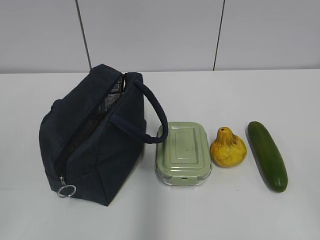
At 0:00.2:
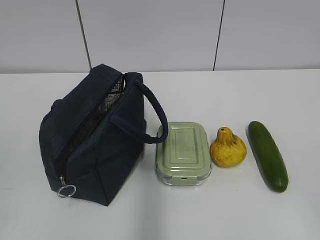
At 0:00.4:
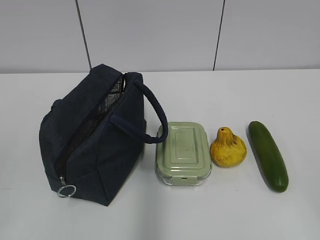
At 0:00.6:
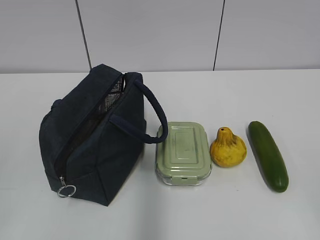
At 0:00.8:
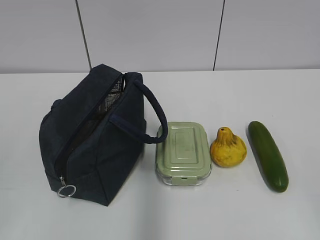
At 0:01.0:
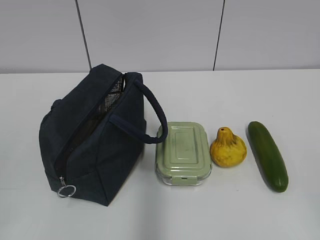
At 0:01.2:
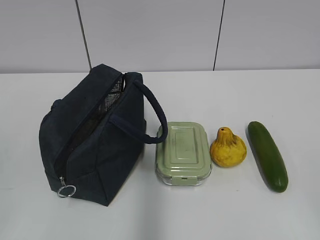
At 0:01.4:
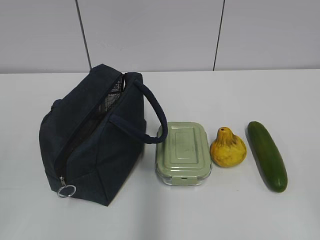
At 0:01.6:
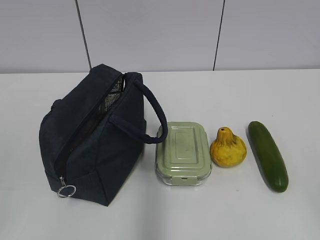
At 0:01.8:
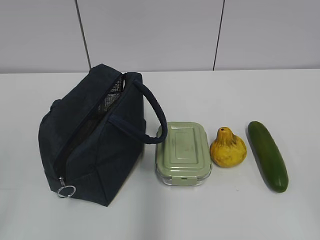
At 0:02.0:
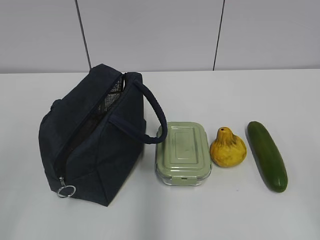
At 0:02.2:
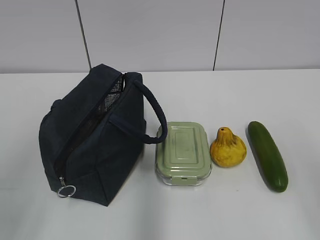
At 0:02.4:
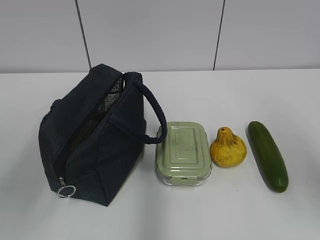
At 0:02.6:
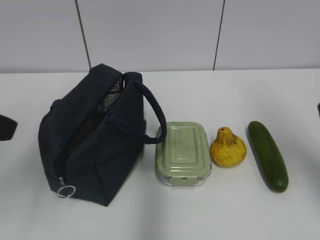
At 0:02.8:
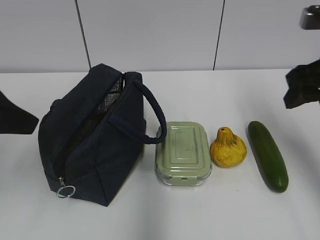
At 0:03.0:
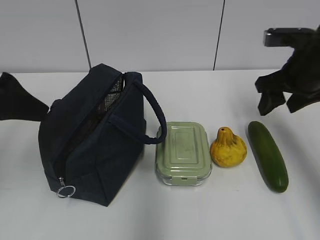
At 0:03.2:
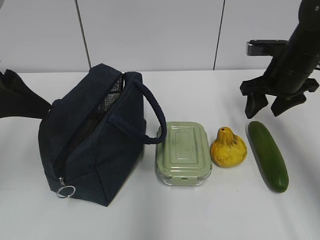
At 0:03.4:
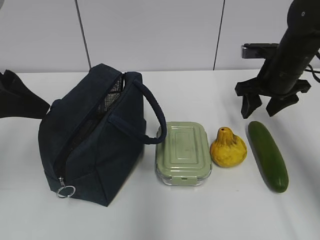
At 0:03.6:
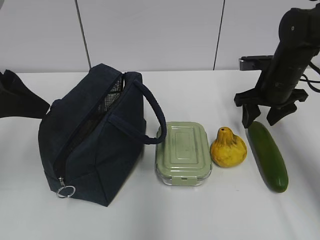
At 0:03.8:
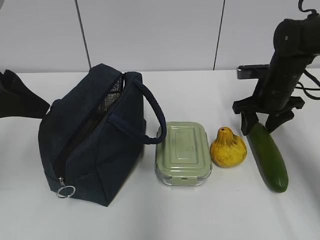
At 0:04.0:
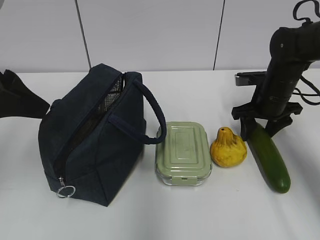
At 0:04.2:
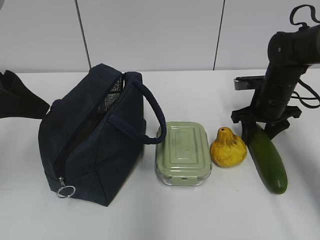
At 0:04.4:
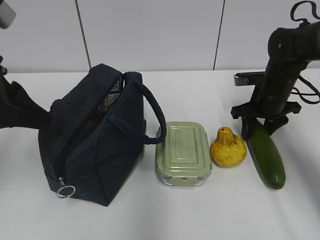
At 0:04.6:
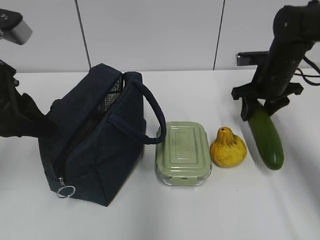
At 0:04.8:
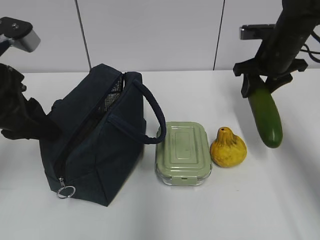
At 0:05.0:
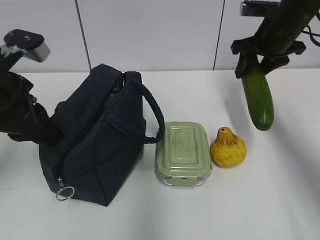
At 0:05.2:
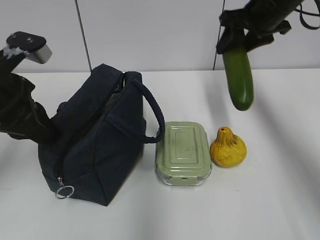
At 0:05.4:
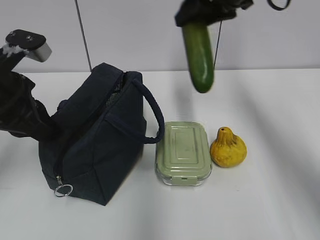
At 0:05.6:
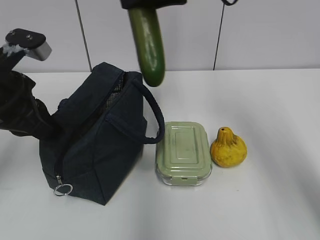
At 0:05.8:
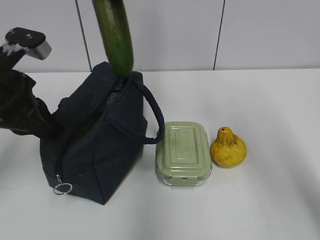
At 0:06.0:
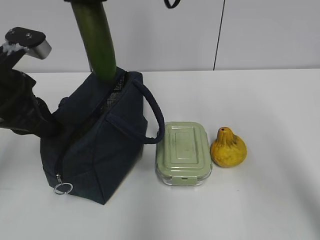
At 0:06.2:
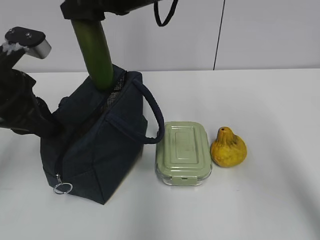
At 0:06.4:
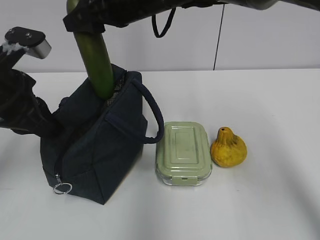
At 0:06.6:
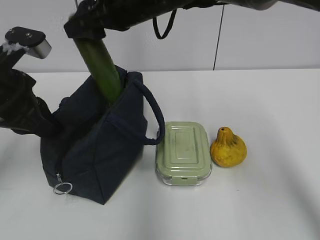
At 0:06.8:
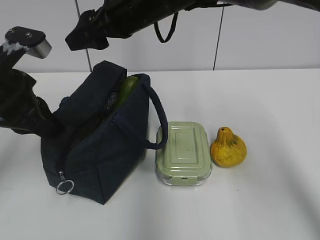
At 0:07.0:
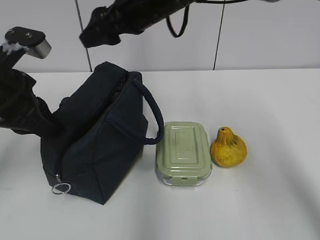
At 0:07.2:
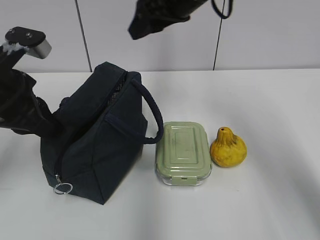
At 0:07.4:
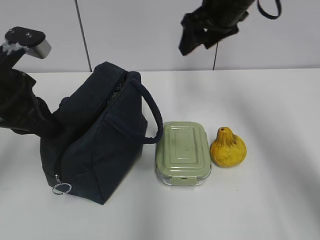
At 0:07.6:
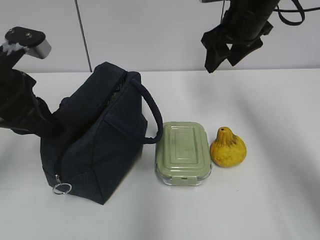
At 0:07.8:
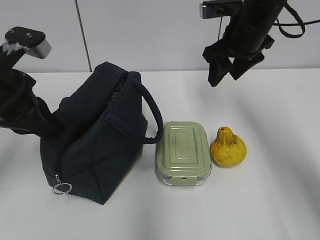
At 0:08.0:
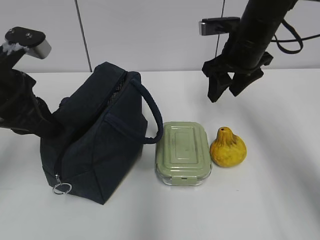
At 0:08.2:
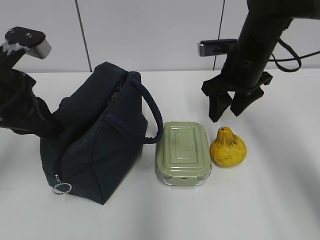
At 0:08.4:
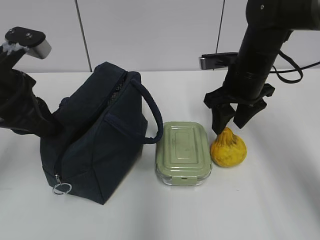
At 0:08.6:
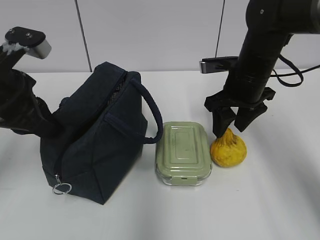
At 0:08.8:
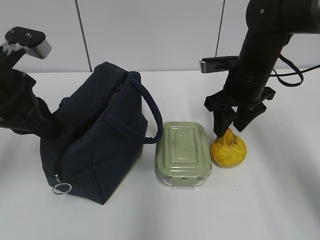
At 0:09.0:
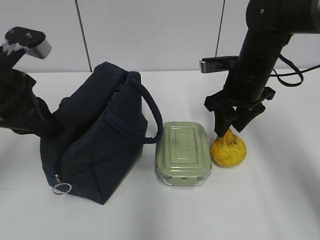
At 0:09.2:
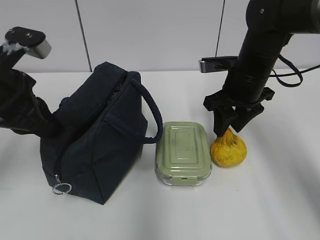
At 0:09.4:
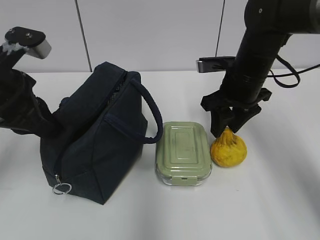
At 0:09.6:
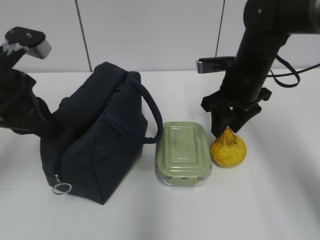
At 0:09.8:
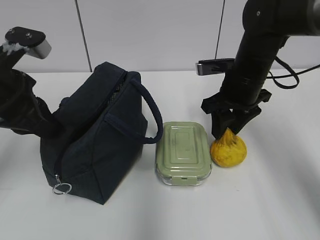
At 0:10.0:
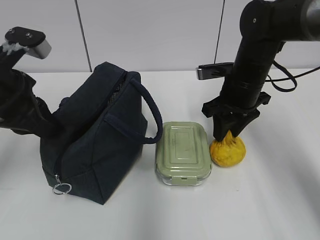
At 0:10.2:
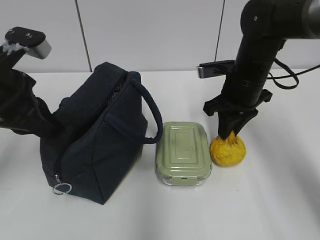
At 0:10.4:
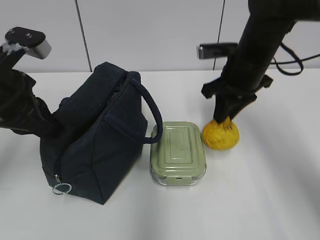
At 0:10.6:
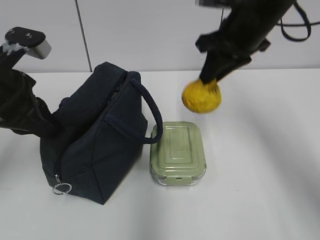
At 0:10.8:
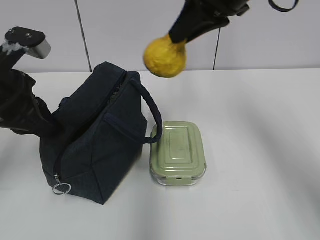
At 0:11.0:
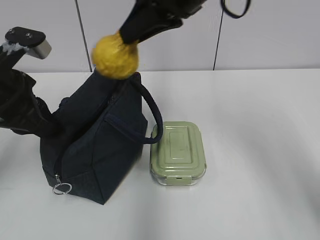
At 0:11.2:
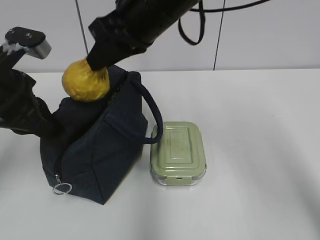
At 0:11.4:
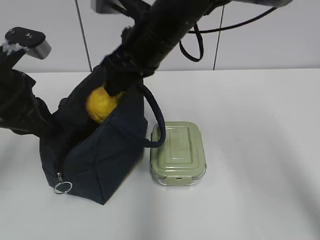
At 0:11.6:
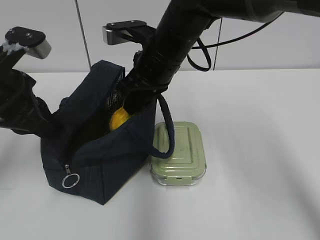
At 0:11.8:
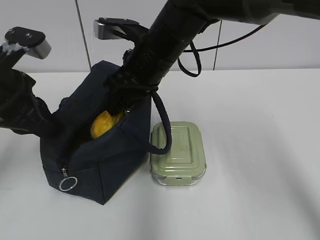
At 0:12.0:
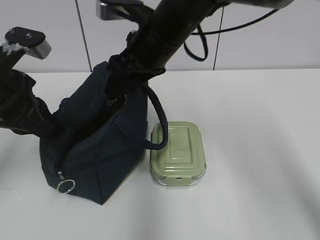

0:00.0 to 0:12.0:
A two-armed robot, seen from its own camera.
0:01.6 to 0:03.0: The right gripper heads forward, covering about 35 cm. Meanwhile the left gripper travels forward by approximately 25 cm.
0:03.0 to 0:04.4: The right gripper travels downward and forward by roughly 10 cm.
0:04.4 to 0:06.0: The left gripper shifts by about 5 cm, and closes up. Meanwhile the right gripper moves to the left and upward, some 30 cm.
0:06.0 to 0:07.6: The right gripper shifts some 15 cm to the right and downward.
0:07.6 to 0:09.0: The right gripper travels downward by approximately 10 cm.
0:09.0 to 0:10.4: The right gripper closes its fingers.
0:10.4 to 0:12.0: The right gripper travels to the left and upward by about 15 cm, and opens up.

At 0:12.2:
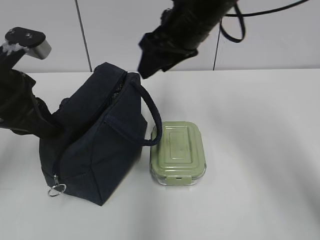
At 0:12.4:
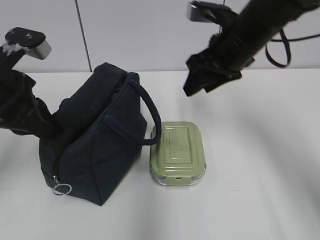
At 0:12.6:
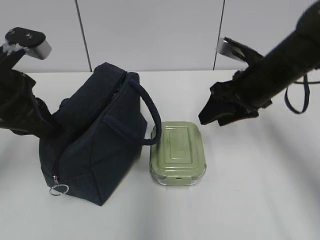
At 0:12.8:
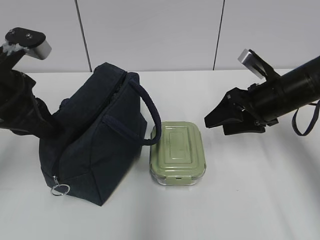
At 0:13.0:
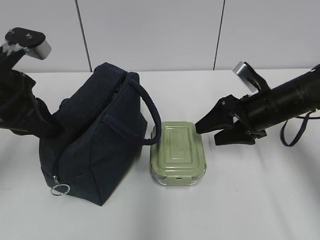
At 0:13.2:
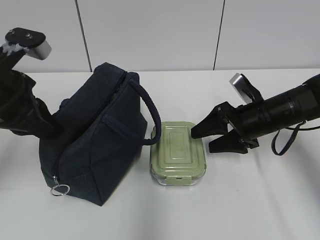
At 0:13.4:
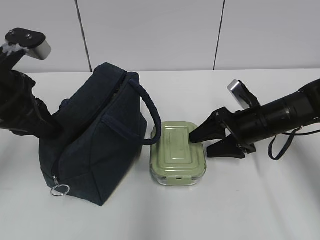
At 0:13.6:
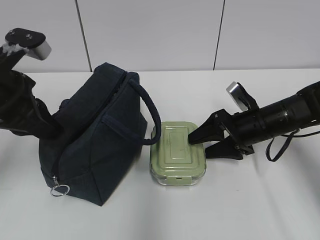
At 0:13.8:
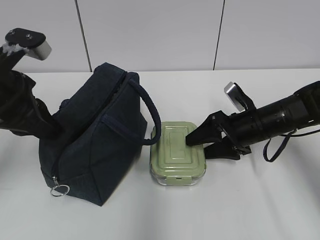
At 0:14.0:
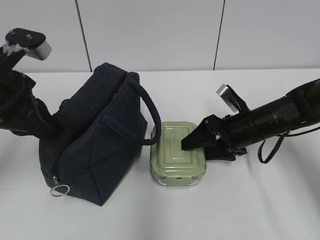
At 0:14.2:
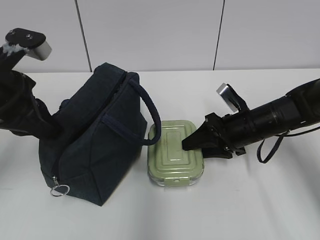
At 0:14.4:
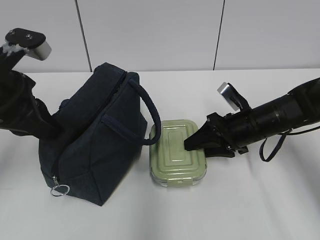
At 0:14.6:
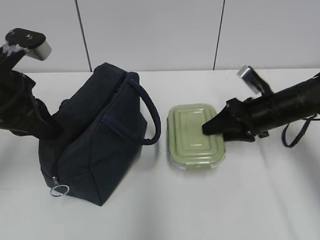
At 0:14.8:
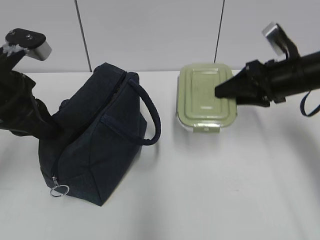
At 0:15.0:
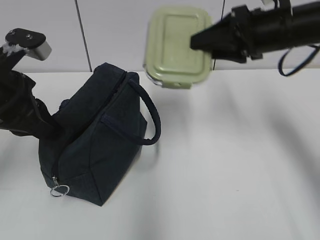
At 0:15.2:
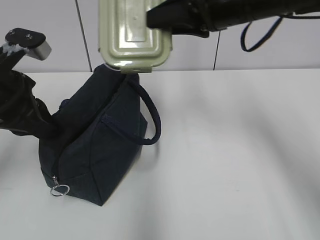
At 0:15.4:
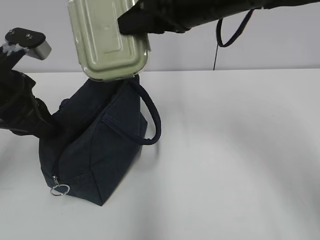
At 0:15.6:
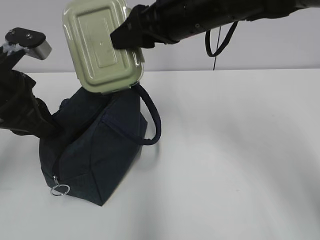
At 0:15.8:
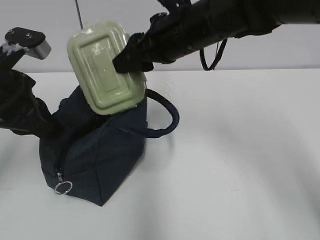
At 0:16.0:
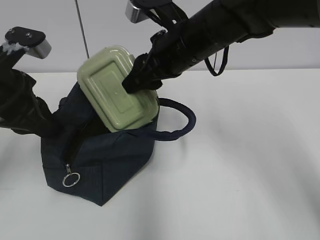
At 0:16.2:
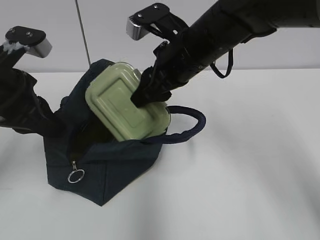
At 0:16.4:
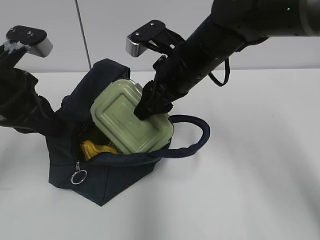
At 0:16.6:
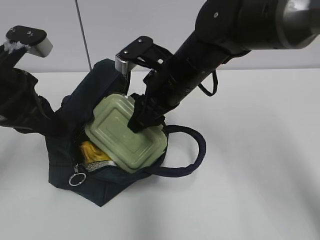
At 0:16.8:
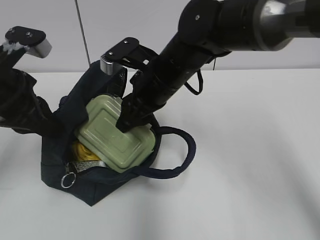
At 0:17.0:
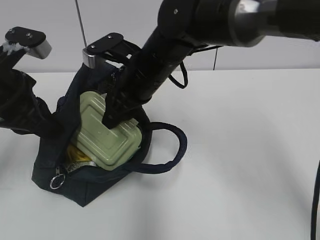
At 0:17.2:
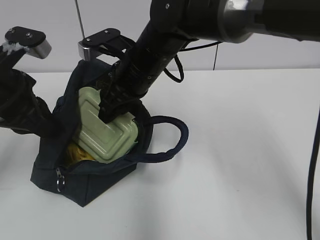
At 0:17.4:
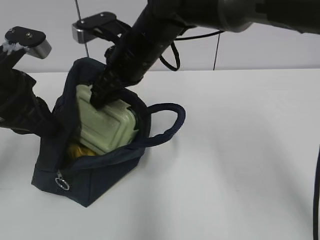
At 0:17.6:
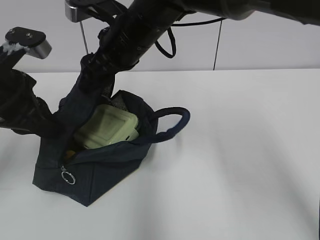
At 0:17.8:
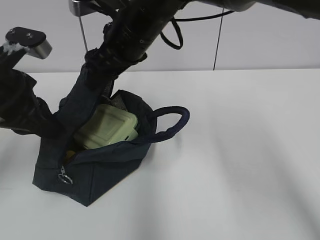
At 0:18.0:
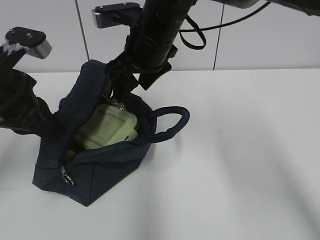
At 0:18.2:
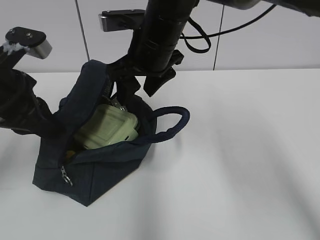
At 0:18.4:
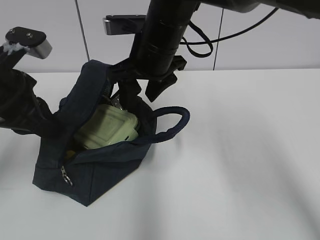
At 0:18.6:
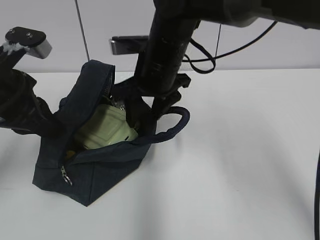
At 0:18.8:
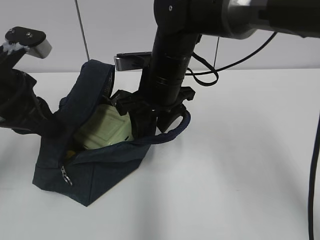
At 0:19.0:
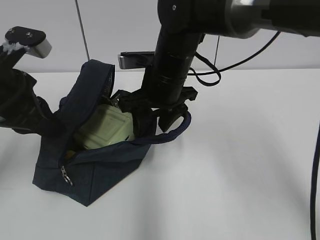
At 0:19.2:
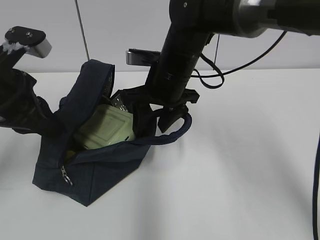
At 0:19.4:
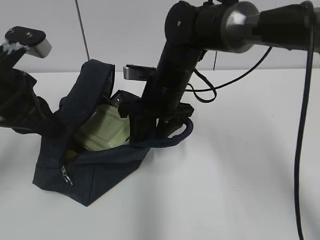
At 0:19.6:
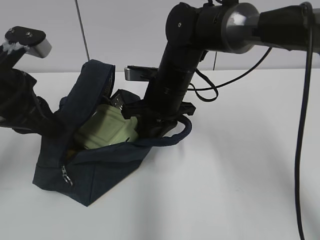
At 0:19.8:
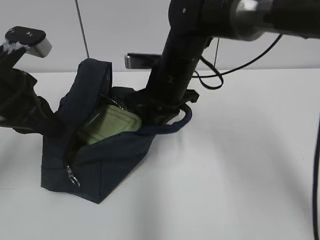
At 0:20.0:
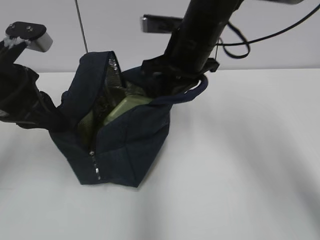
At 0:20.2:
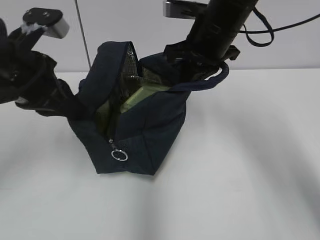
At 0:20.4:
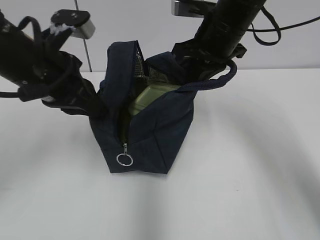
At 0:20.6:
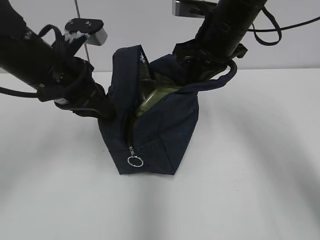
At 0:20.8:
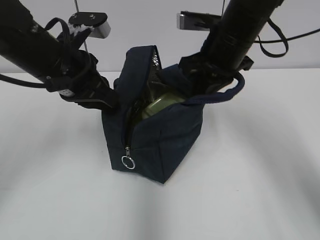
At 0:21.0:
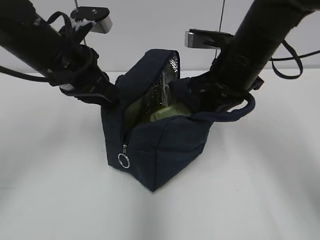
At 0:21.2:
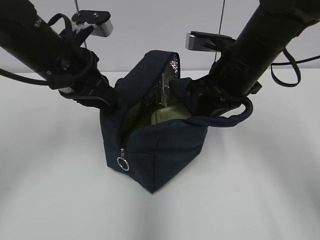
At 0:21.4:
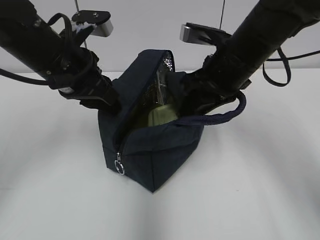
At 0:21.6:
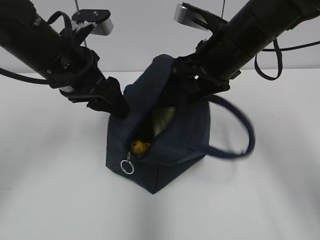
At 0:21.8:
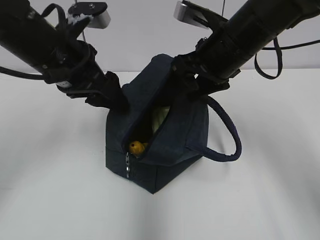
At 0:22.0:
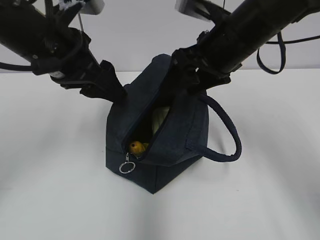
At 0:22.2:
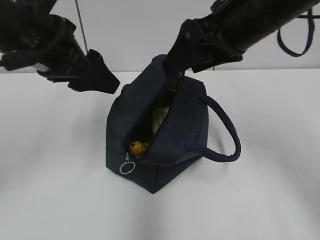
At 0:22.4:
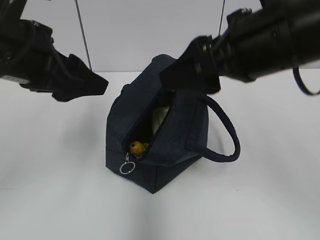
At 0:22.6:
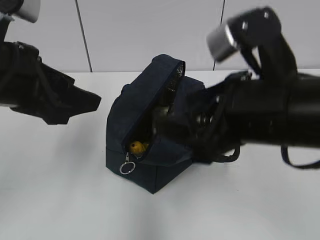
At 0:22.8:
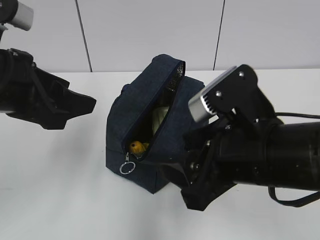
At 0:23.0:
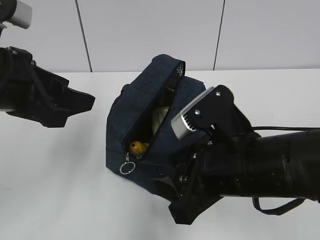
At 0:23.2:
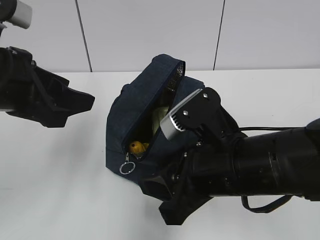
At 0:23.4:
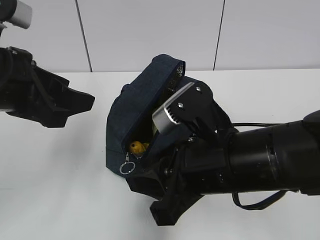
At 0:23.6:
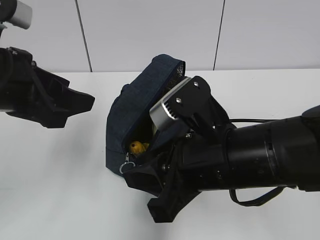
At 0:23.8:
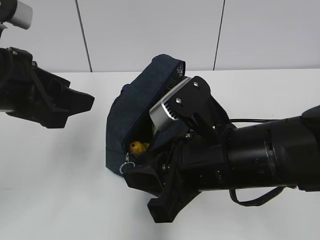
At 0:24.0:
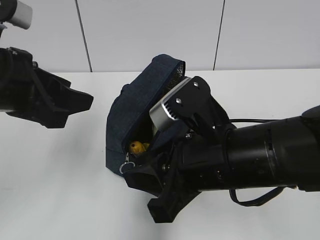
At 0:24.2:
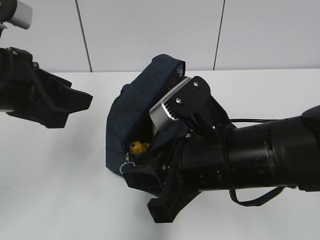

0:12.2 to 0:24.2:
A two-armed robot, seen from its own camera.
0:12.2 to 0:13.8: The right gripper heads downward and to the right, covering approximately 20 cm.
0:13.8 to 0:15.2: The right gripper is displaced upward by some 20 cm, and closes up.
0:15.2 to 0:16.6: The right gripper goes roughly 15 cm downward and to the left.
0:16.6 to 0:18.2: The right gripper heads upward, covering some 5 cm.
0:18.2 to 0:19.8: The right gripper travels downward by some 5 cm, and closes.
0:19.8 to 0:21.2: The right gripper travels to the right by roughly 10 cm, while the left gripper moves to the right and forward, some 10 cm.
0:21.2 to 0:22.6: The right gripper moves backward, some 15 cm, and opens up, while the left gripper goes some 10 cm backward, and opens.
0:22.6 to 0:24.2: The right gripper ends up roughly 5 cm from where it was, and closes its fingers.
